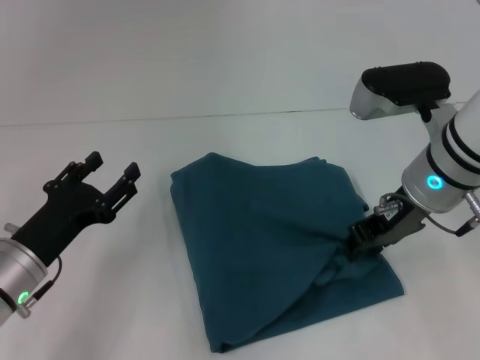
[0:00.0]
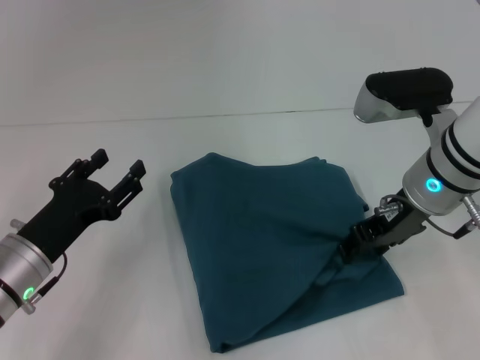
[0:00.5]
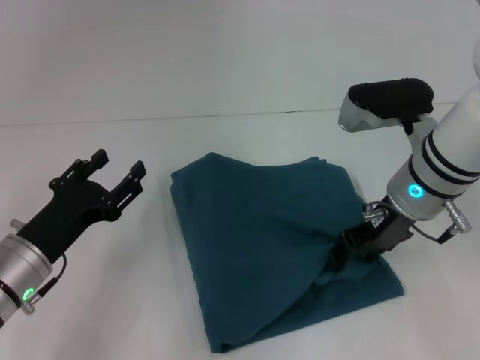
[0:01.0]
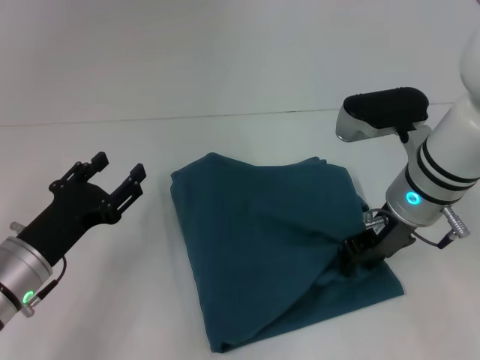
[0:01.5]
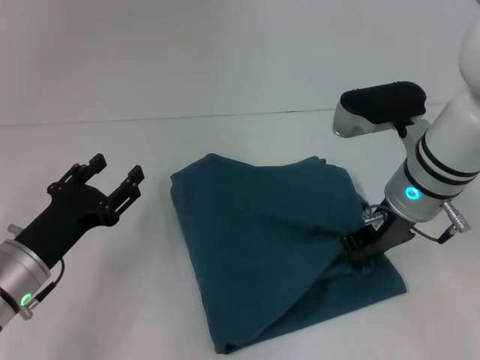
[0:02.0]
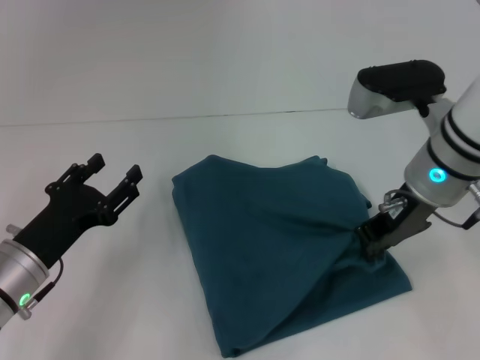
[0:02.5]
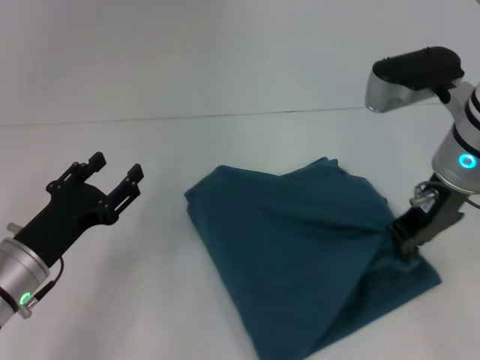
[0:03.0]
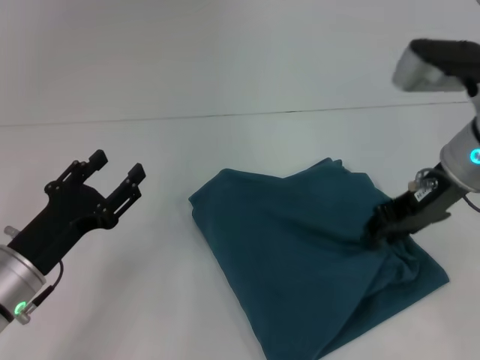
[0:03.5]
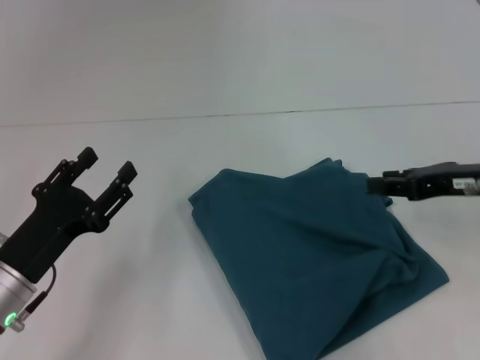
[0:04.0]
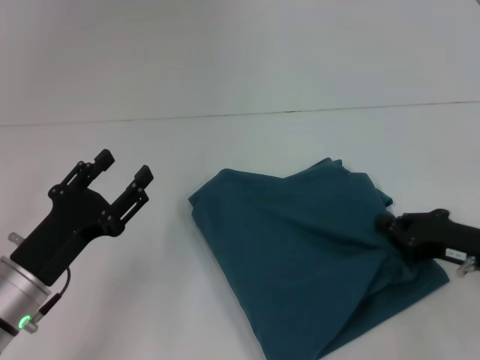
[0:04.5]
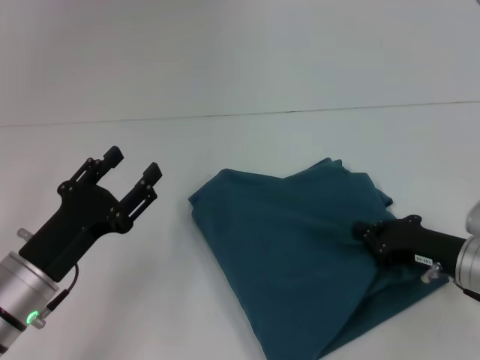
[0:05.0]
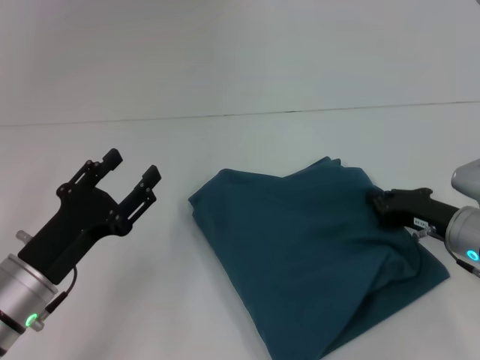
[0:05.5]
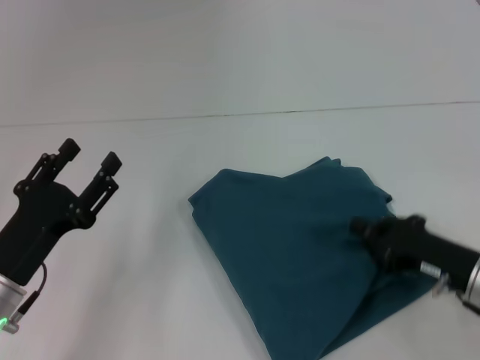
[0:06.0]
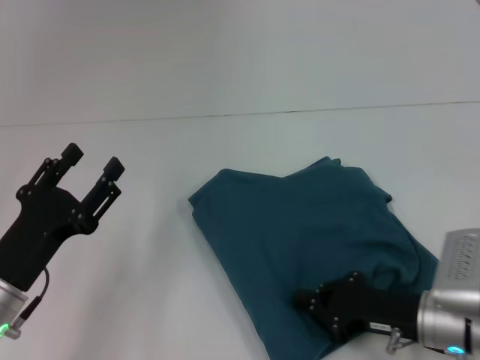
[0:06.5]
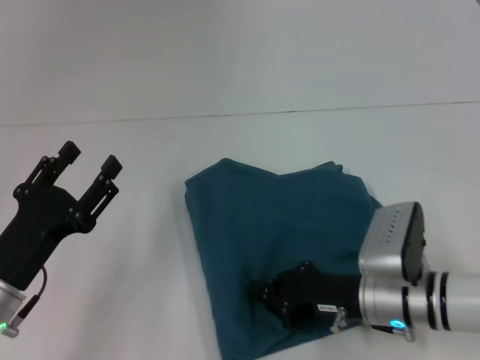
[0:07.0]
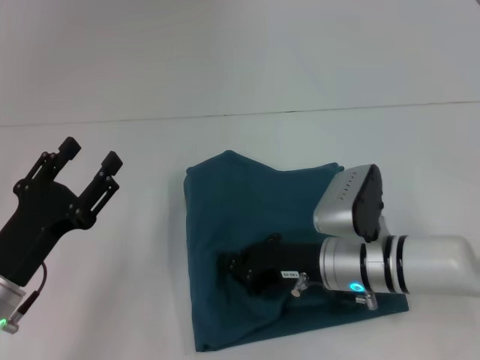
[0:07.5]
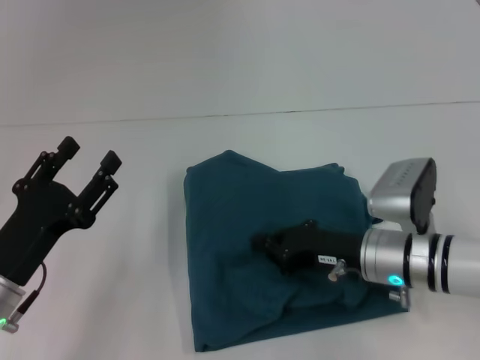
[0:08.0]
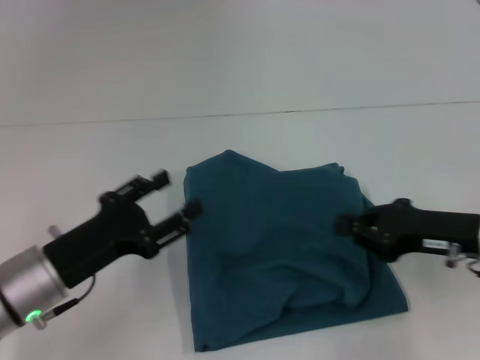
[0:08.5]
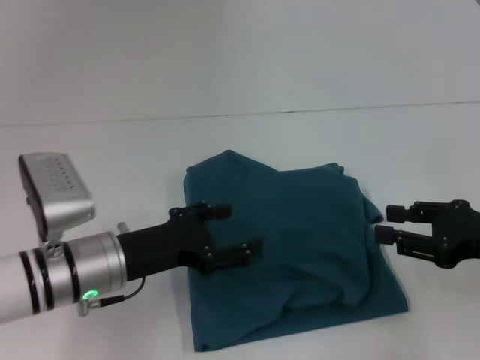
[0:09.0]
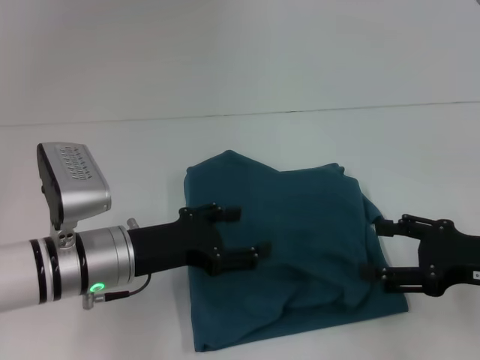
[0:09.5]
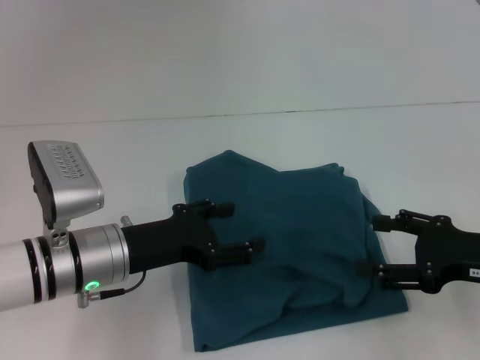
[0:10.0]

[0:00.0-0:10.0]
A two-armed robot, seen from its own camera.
0.0 to 2.0 s: The right gripper opens and closes again.
2.0 to 4.0 s: The right gripper shifts about 10 cm to the right, and opens its fingers.
4.0 to 6.0 s: The right gripper heads downward and backward, covering some 15 cm, and closes up.
6.0 to 8.0 s: The right gripper shifts roughly 10 cm to the left and forward.
8.0 to 10.0 s: The right gripper heads to the right, upward and backward, covering some 15 cm, and opens its fingers; the left gripper is displaced to the right and forward by approximately 10 cm.

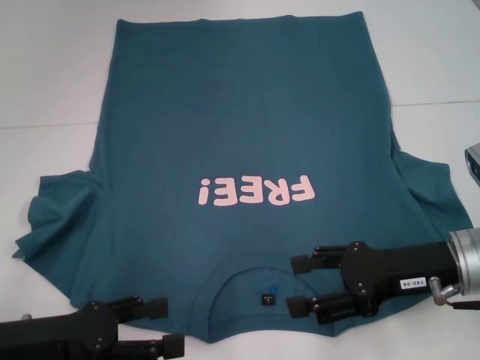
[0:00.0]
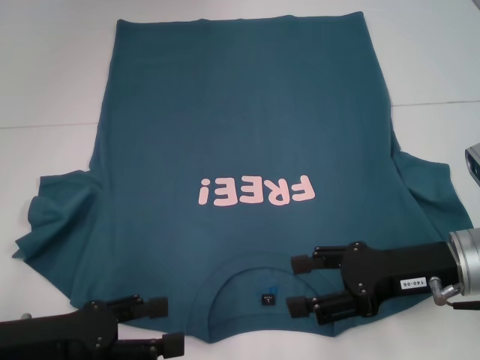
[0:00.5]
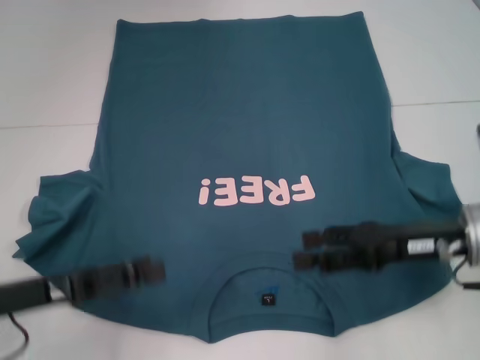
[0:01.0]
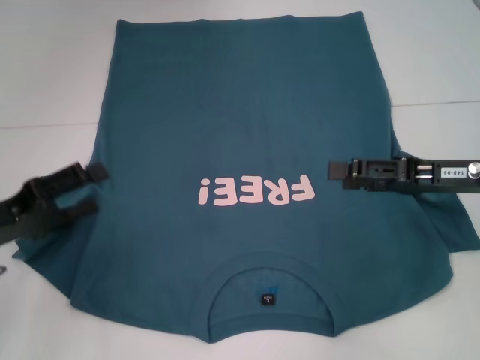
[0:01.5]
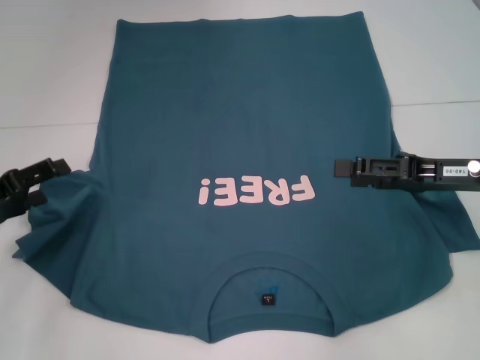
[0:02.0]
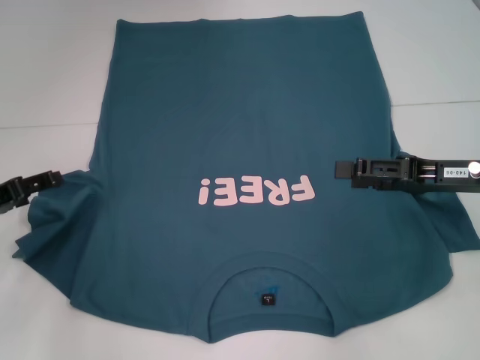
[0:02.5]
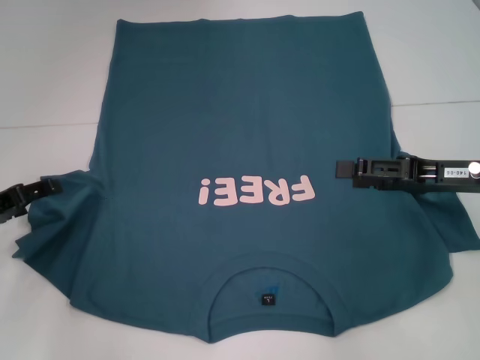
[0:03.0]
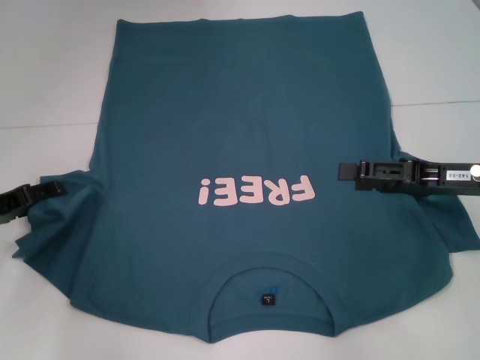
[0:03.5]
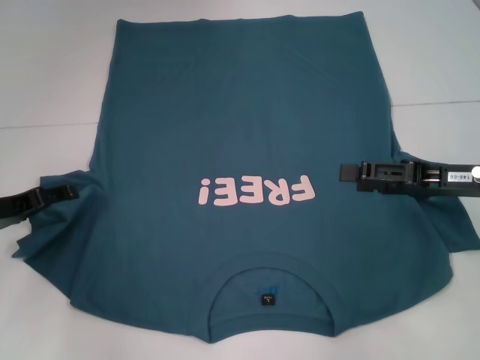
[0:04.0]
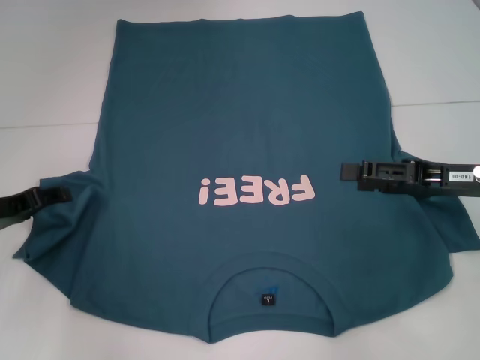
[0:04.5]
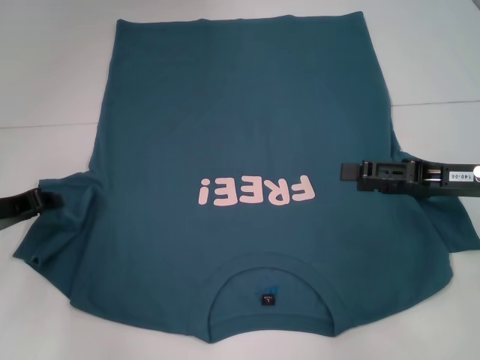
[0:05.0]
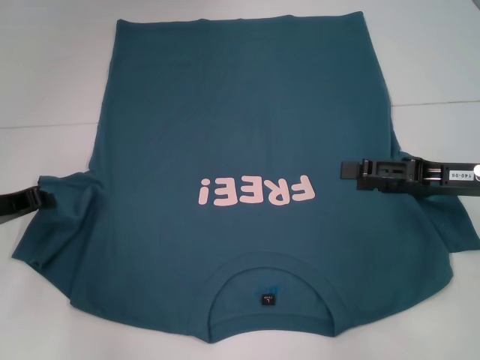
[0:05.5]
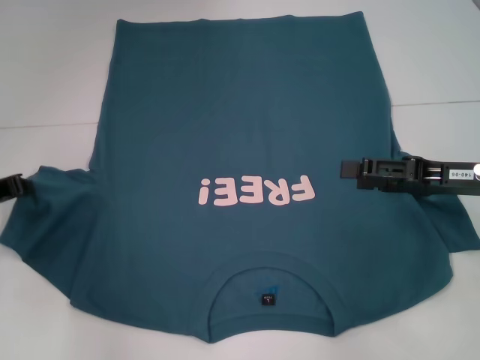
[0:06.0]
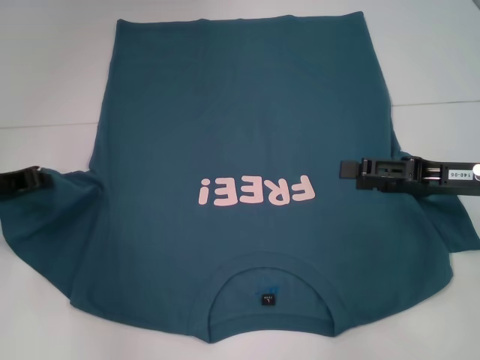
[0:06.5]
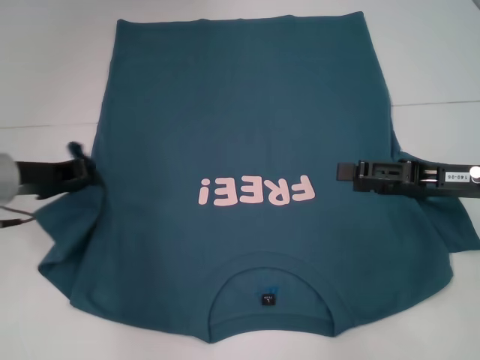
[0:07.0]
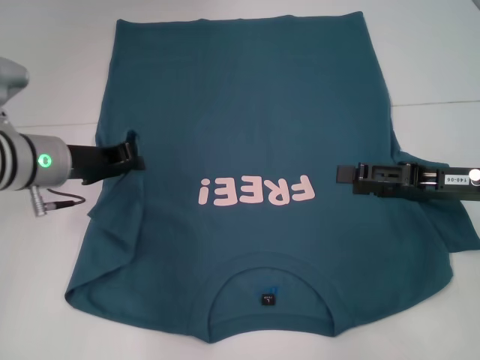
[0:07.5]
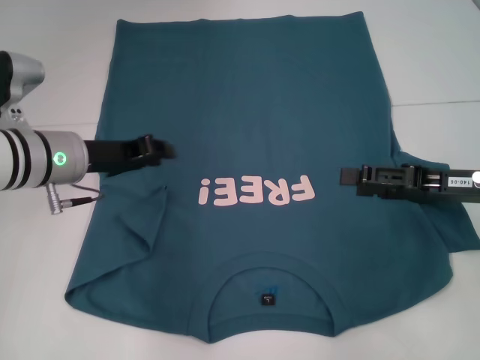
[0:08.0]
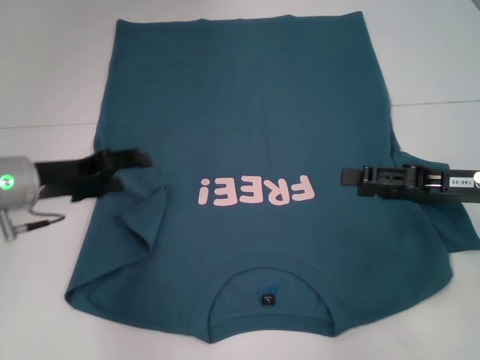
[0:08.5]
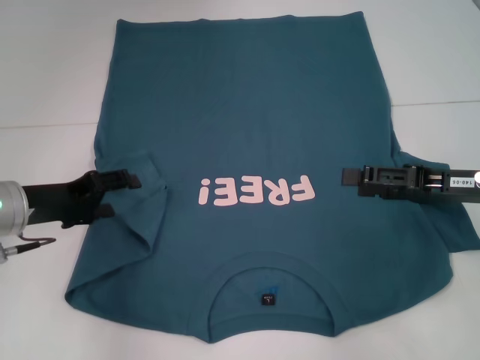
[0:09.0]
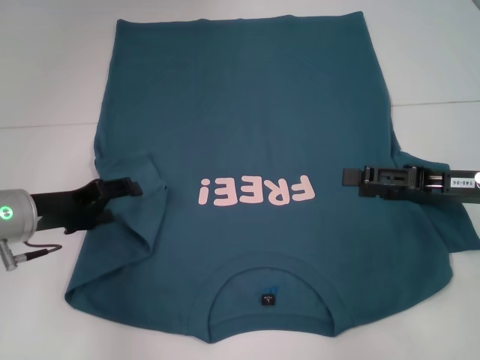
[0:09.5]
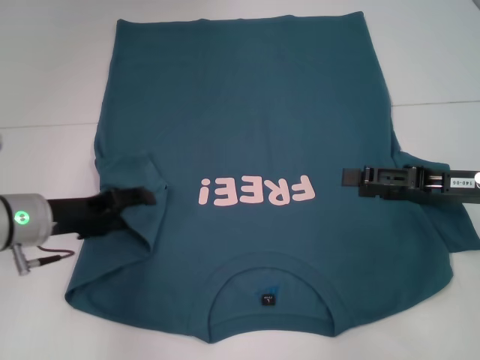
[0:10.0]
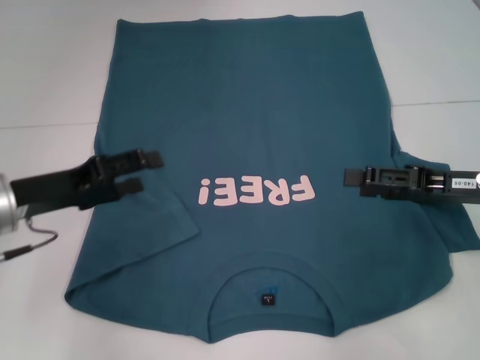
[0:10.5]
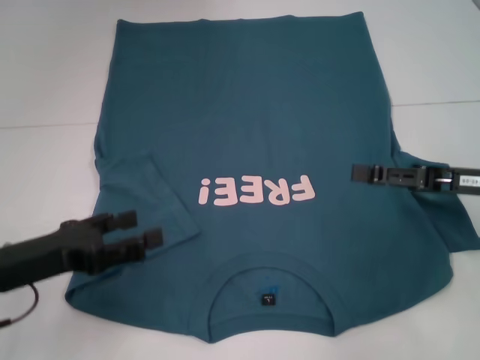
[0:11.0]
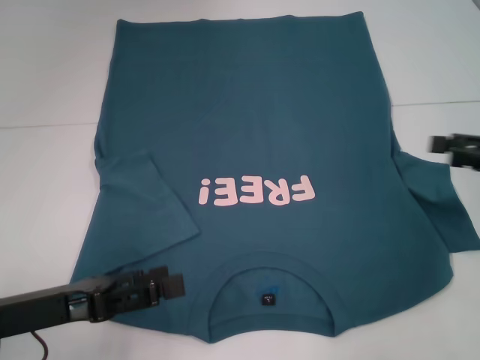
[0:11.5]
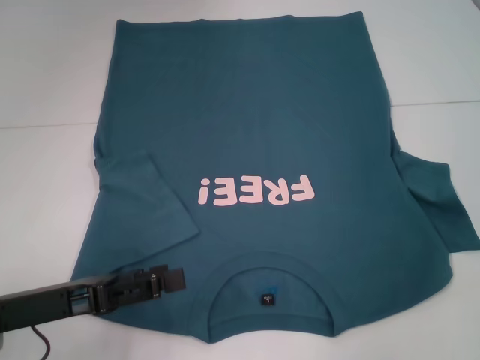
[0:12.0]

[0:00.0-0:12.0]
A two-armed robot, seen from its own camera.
Step, 0.0 to 10.0 s: Fold the bottom left sleeve with your left hand.
0.0 to 2.0 s: The right gripper travels to the right by about 5 cm, while the left gripper shifts some 10 cm forward and to the left.
4.0 to 6.0 s: The left gripper closes its fingers.
6.0 to 8.0 s: The left gripper heads to the right, covering approximately 15 cm.
8.0 to 10.0 s: The left gripper changes place by about 5 cm, and opens.
10.0 to 12.0 s: The left gripper goes about 10 cm backward; the right gripper heads to the right, covering about 10 cm.

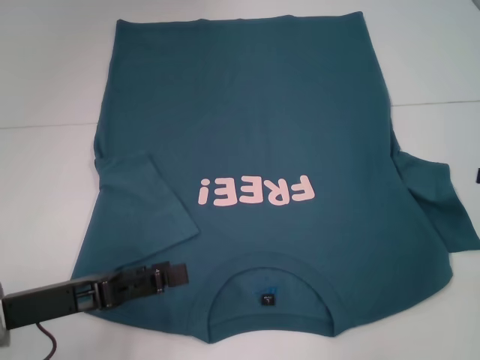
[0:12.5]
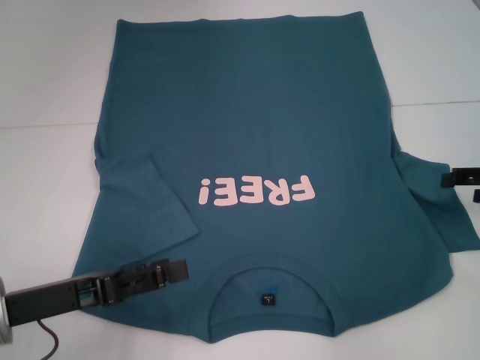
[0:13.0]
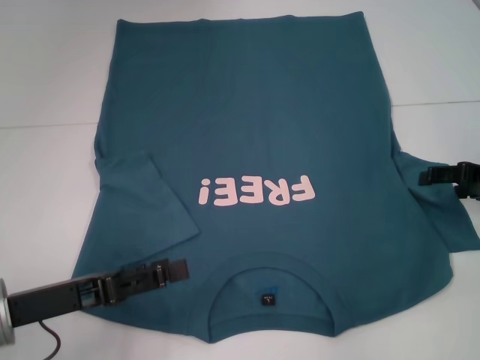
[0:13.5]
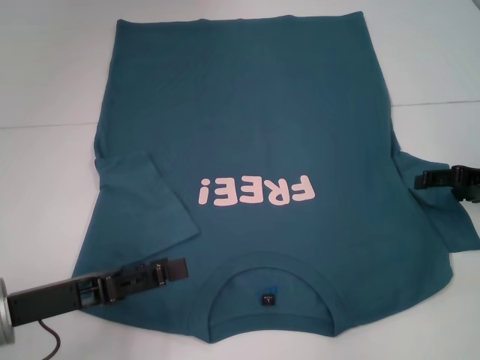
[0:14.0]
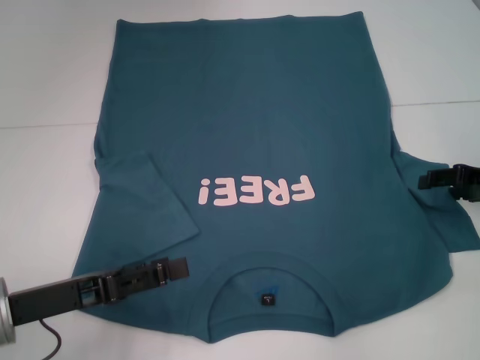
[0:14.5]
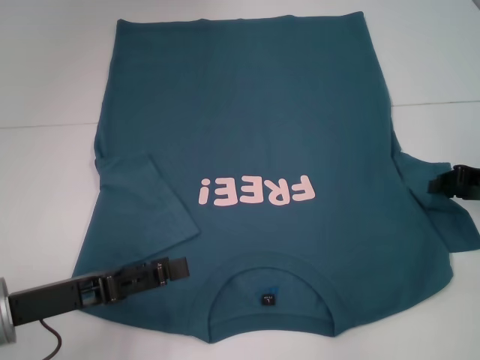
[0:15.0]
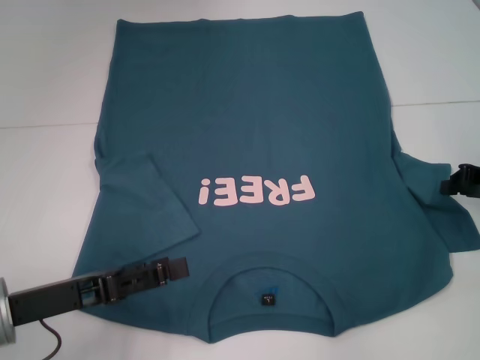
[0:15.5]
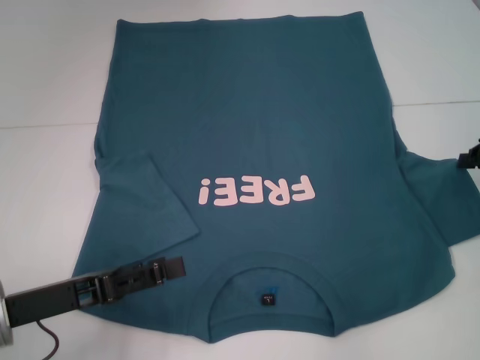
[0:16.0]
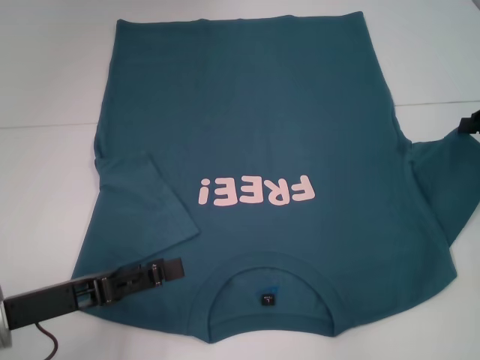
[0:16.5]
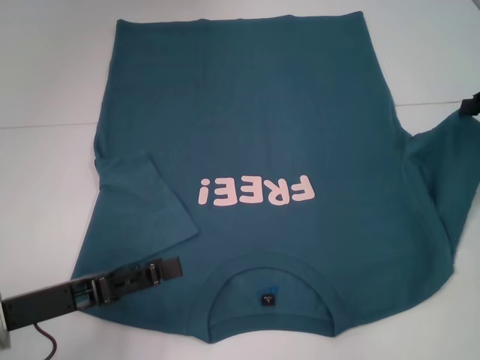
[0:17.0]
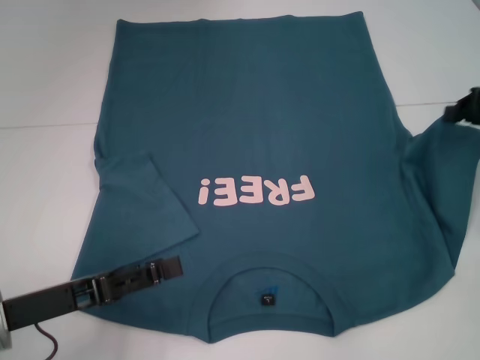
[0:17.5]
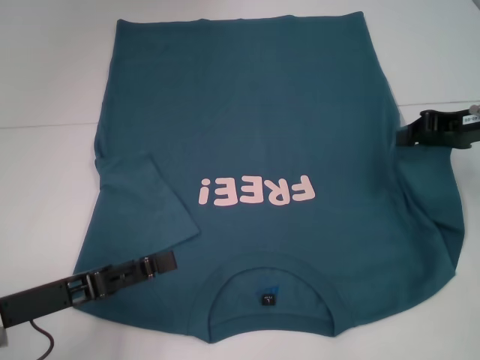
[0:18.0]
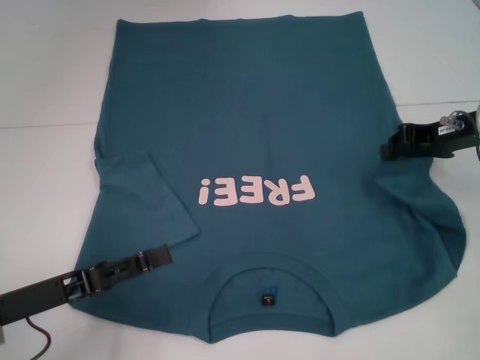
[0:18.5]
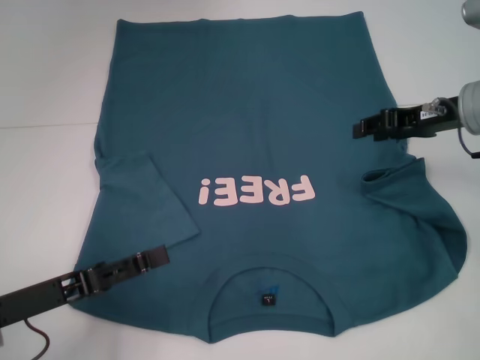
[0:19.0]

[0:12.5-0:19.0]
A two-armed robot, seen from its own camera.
12.5 to 14.5 s: The right gripper is displaced to the left by approximately 5 cm.
14.5 to 17.0 s: The right gripper moves upward, approximately 5 cm, and closes.
17.0 to 19.0 s: The right gripper shifts roughly 10 cm to the left.
